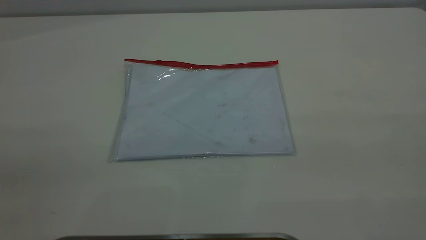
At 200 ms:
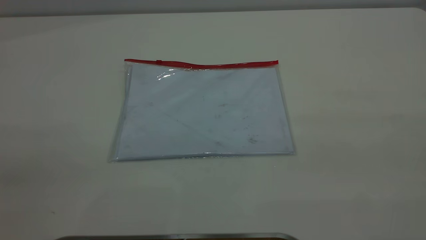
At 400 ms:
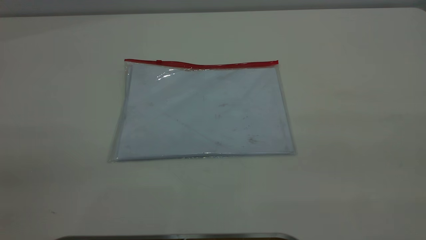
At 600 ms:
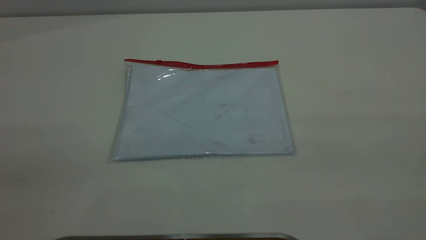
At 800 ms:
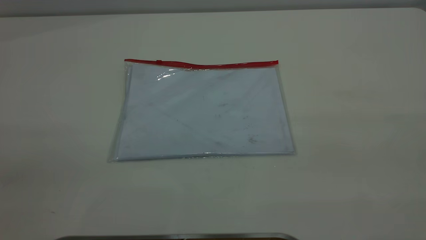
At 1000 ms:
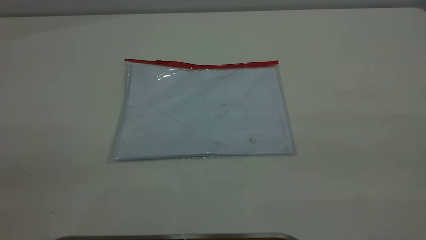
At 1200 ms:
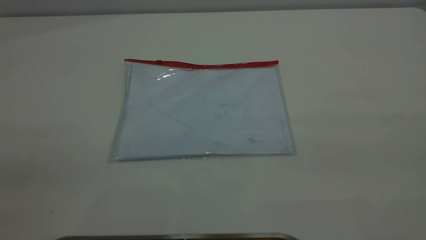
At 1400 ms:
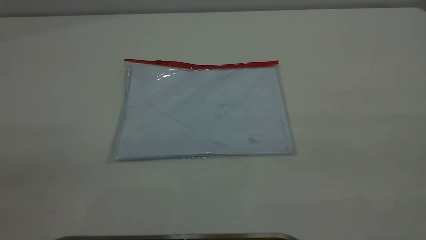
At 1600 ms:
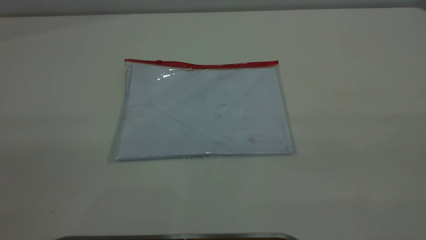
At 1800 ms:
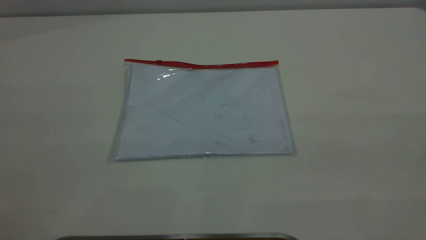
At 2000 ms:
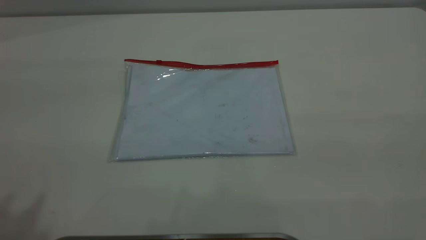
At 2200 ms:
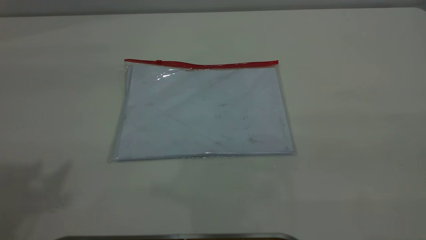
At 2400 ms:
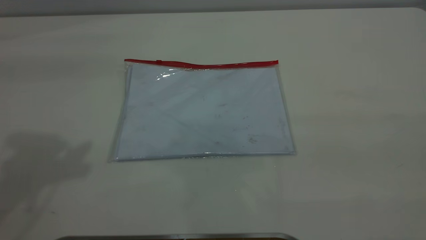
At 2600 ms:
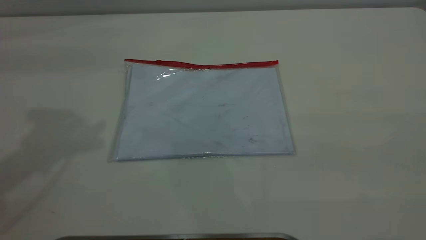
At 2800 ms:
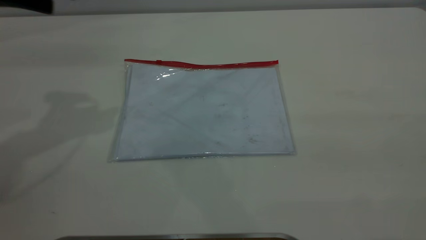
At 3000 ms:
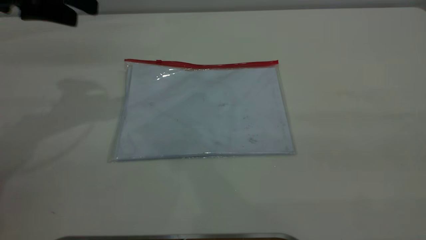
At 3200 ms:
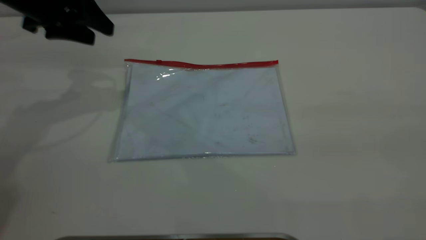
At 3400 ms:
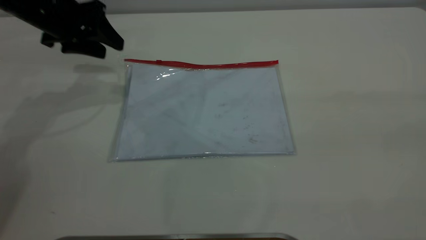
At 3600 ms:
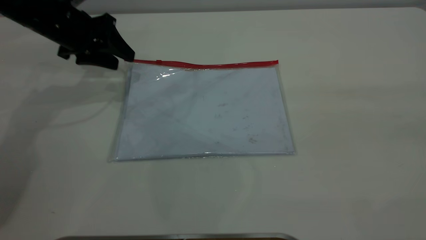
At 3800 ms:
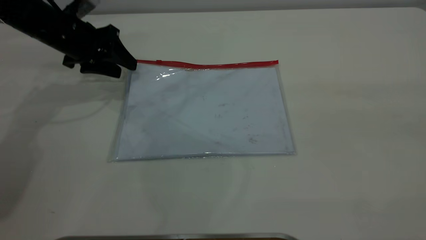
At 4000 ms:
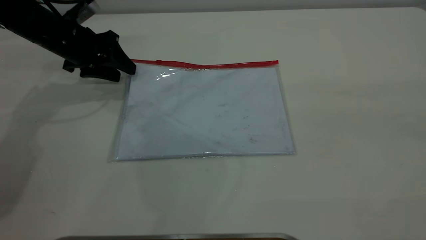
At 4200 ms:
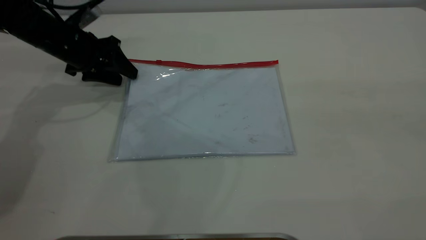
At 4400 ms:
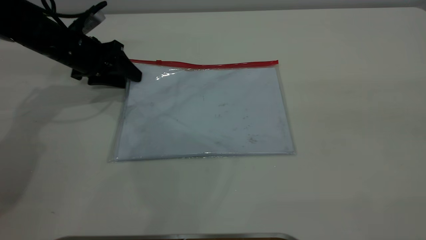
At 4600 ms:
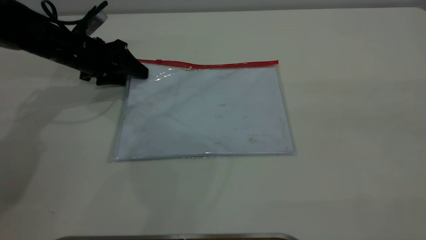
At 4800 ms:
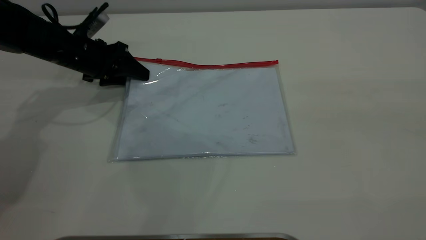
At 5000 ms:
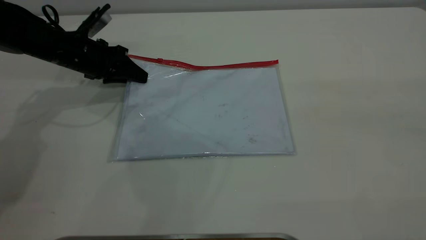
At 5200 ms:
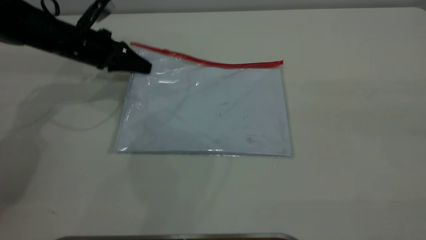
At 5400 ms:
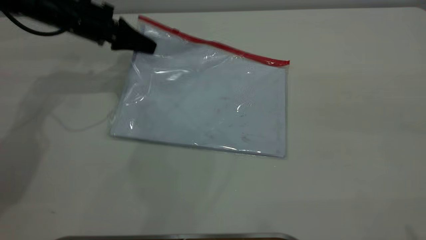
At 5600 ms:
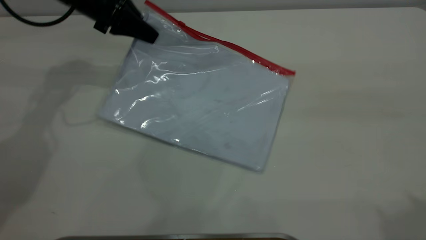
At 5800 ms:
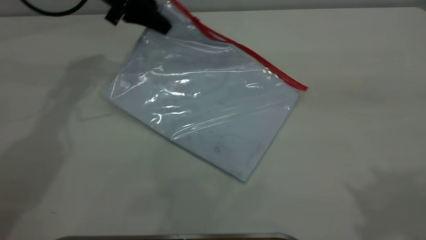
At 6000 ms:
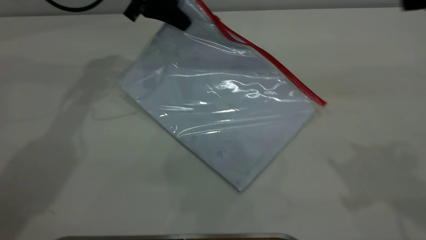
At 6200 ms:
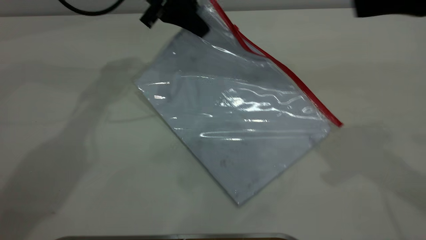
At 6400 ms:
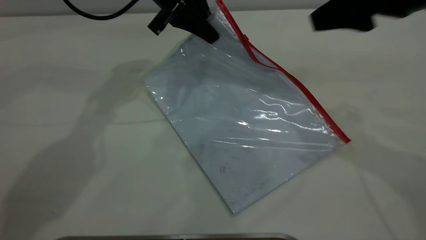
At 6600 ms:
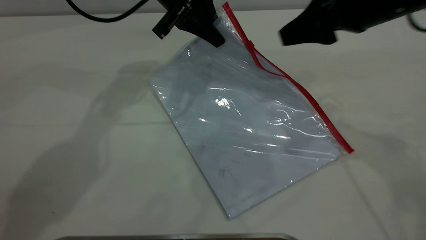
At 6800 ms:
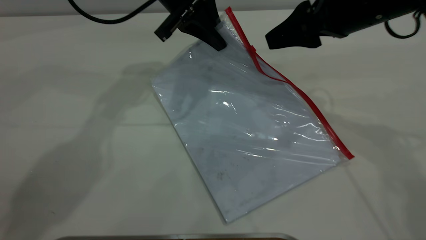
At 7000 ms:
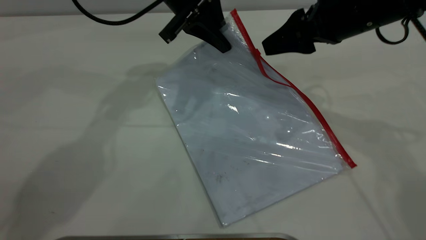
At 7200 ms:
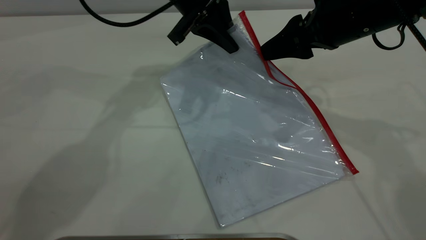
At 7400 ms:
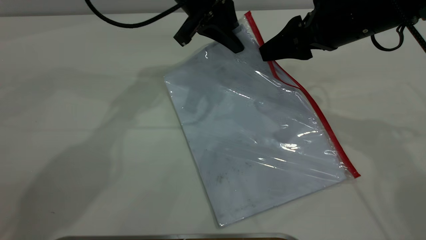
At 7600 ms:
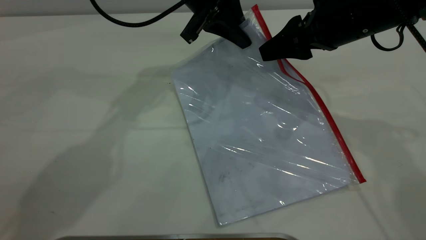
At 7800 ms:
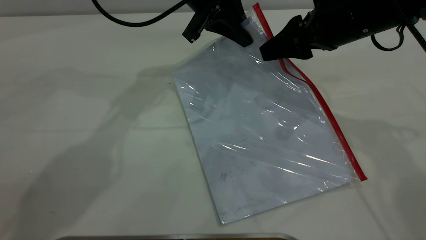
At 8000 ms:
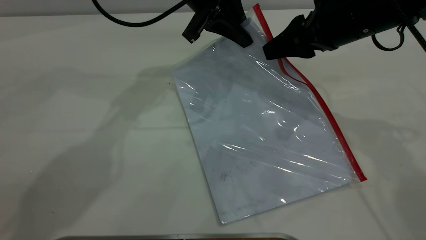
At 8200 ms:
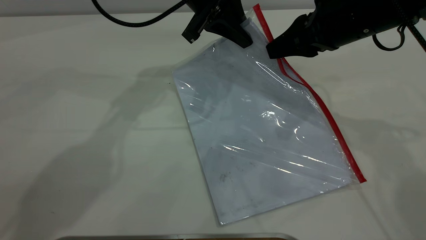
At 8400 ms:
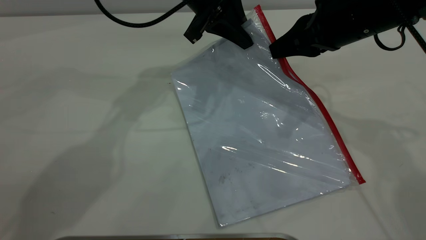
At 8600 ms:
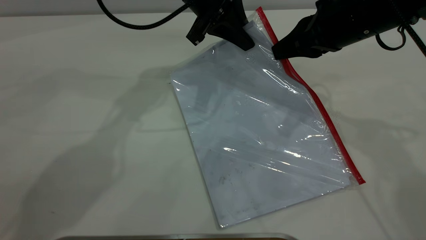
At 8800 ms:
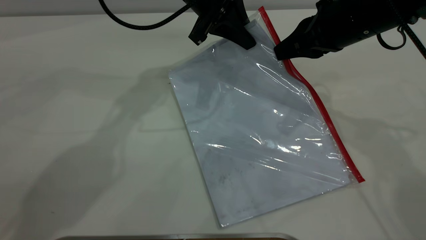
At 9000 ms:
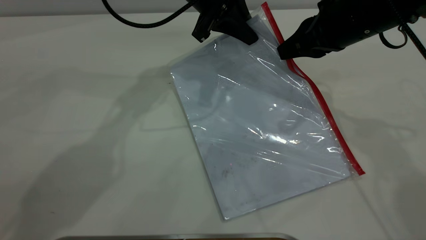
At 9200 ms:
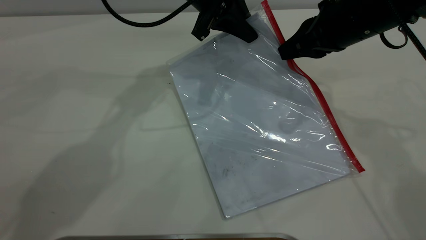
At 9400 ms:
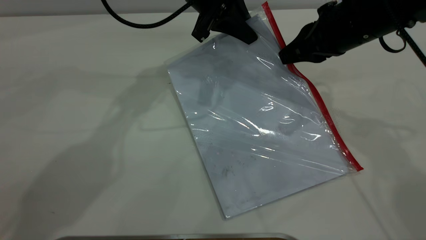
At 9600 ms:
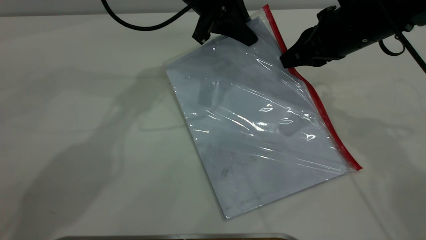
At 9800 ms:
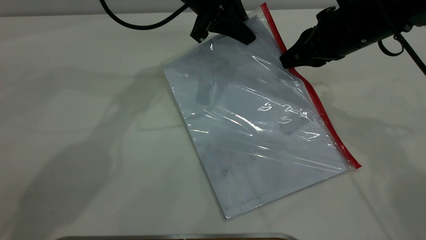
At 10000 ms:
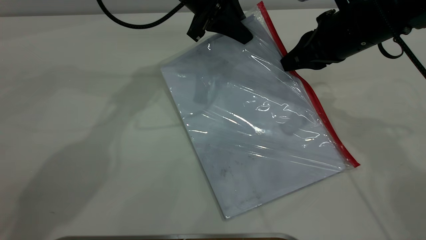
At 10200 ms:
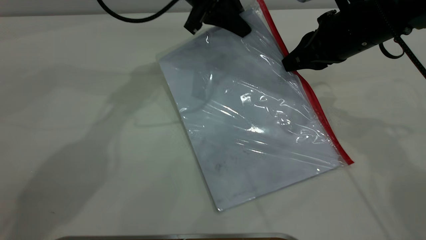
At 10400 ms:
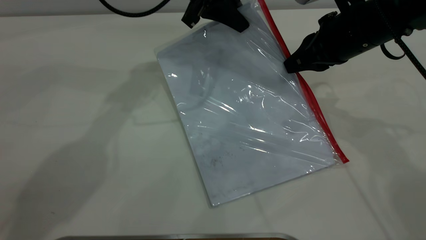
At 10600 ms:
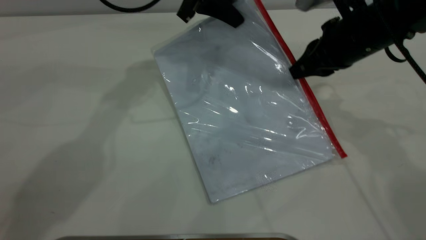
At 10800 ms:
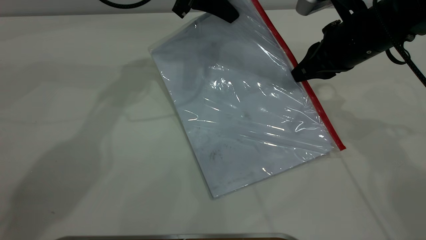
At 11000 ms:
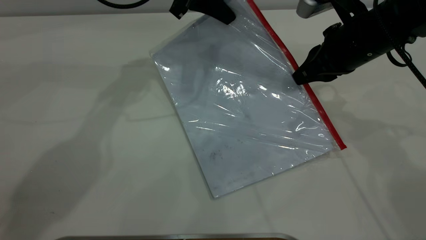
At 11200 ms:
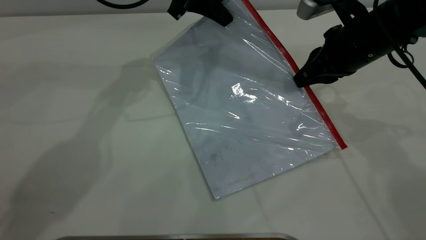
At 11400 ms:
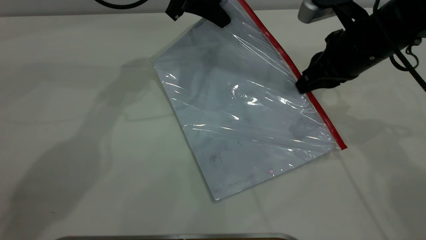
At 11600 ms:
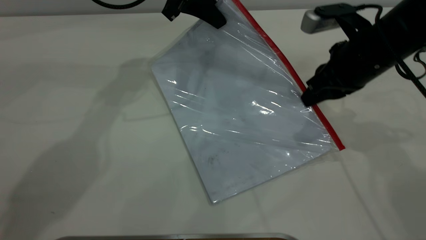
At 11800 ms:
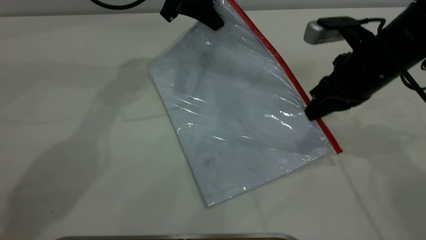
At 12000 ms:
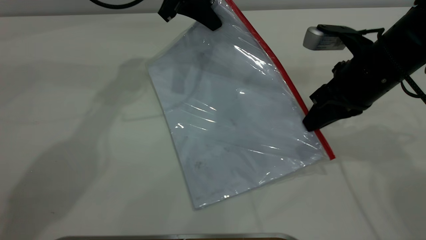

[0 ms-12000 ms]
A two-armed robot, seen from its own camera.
Step, 0 ms to 5200 ms: Pick up the transparent plastic bag with the left gripper.
1600 ms to 3000 ms: The left gripper travels forward and downward by roughly 40 cm.
3000 ms to 4400 ms: The left gripper is displaced downward and forward by approximately 20 cm.
4400 ms to 6000 ms: The left gripper is displaced to the right and upward by approximately 15 cm, and closes; the right gripper goes approximately 20 cm forward and downward.
6000 ms to 7600 ms: The right gripper travels downward, forward and to the left by some 20 cm. The left gripper heads to the right, covering approximately 10 cm.
7600 ms to 9000 ms: The right gripper closes up.
9000 ms to 10400 ms: The grippers move only a little.
10400 ms to 12000 ms: The right gripper changes place by approximately 5 cm.

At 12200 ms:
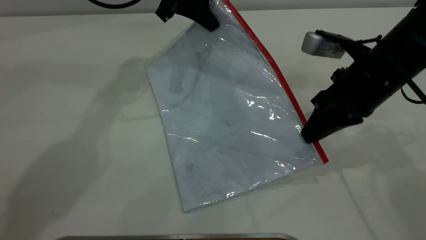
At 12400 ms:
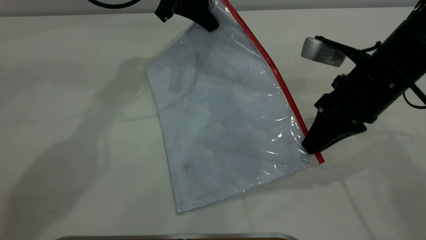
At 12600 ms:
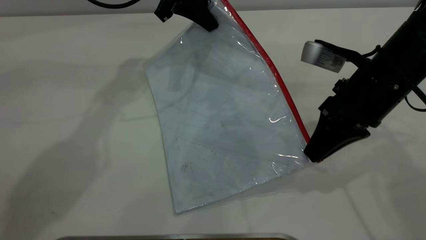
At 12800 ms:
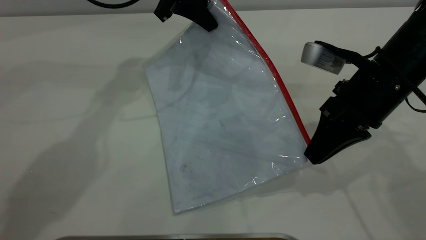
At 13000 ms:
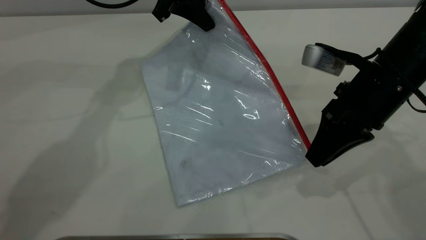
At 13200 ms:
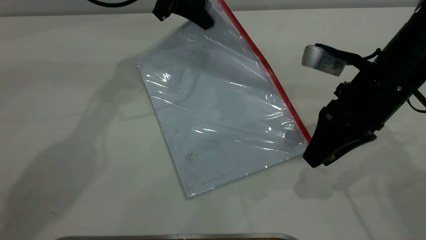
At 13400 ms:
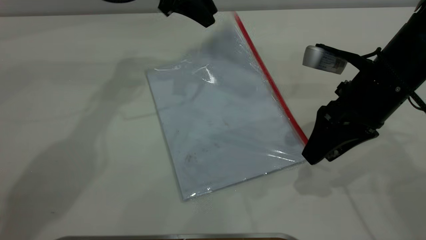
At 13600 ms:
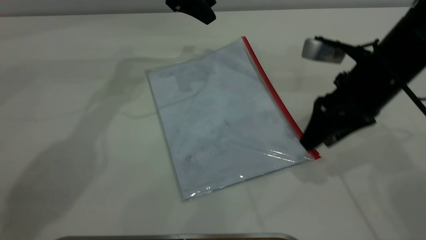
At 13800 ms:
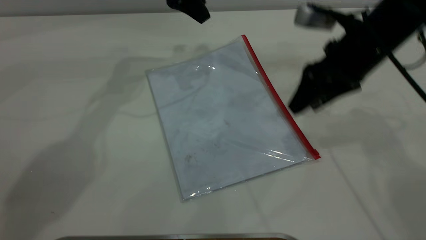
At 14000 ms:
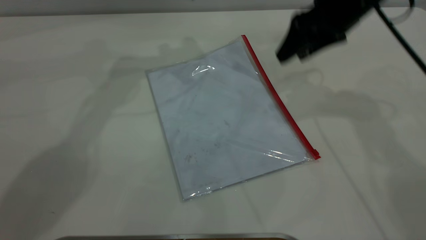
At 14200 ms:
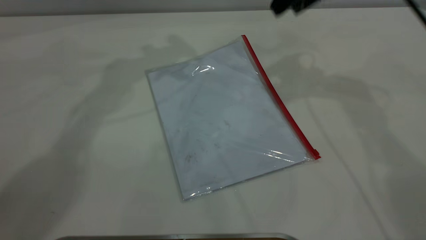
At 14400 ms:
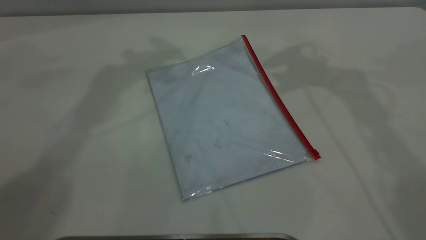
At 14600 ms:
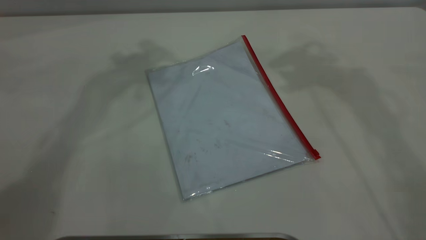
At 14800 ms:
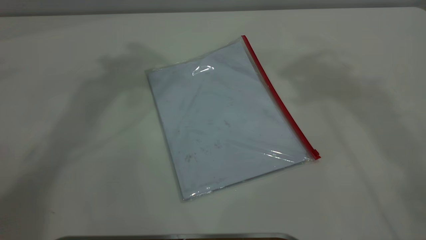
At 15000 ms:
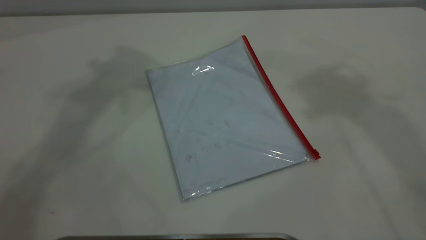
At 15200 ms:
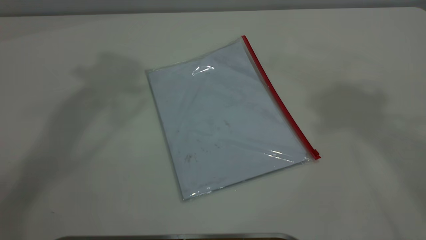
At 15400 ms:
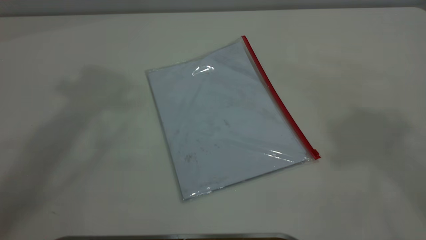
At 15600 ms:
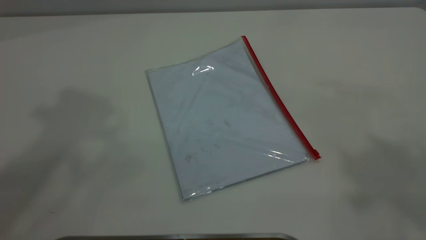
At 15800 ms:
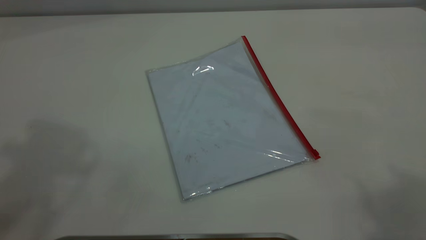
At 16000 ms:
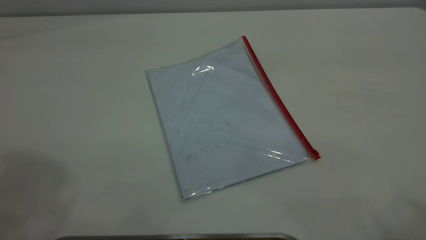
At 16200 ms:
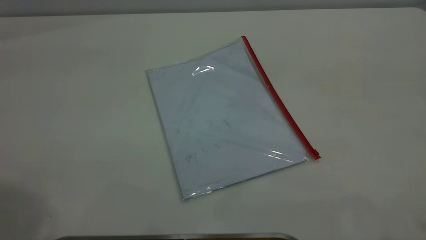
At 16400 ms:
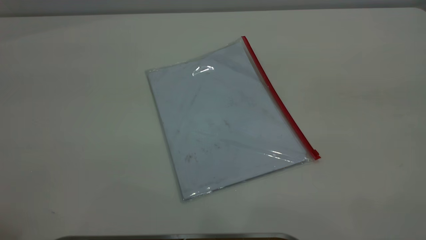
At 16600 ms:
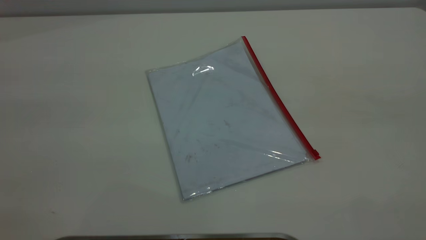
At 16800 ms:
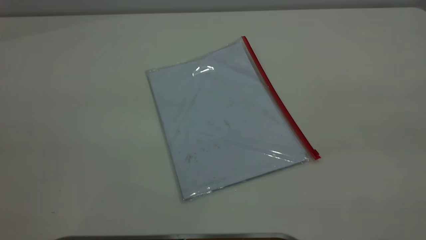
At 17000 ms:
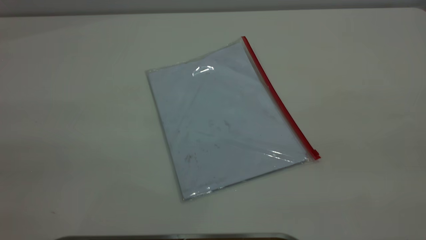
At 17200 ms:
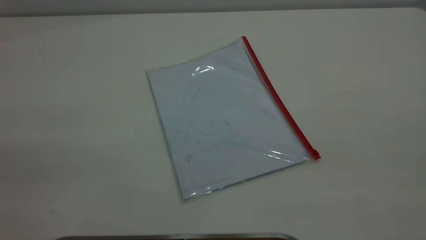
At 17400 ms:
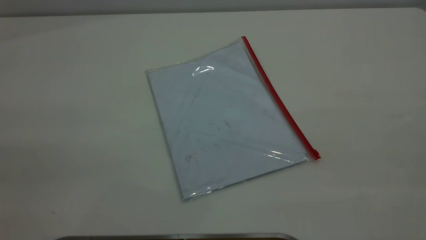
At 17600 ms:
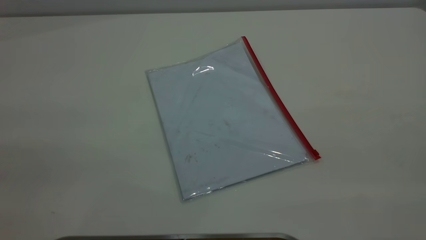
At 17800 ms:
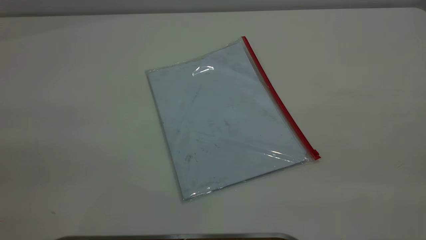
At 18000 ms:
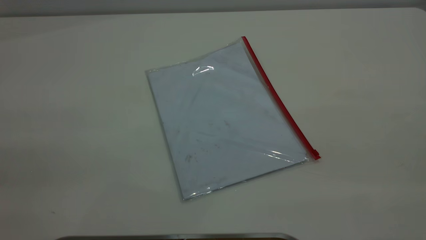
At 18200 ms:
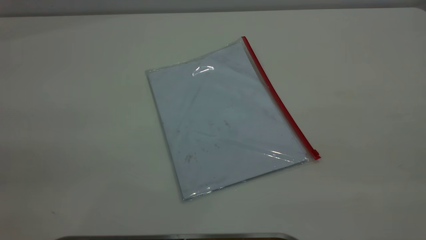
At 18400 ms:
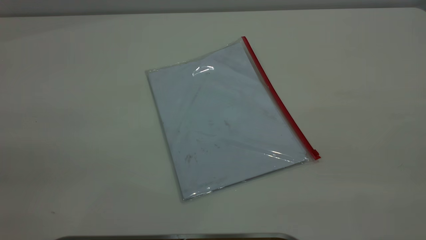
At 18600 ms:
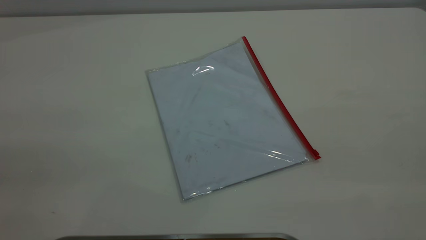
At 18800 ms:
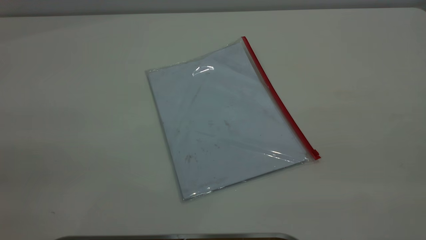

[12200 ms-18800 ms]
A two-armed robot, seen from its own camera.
Step, 13200 ms to 13800 ms: Place the transparent plastic bag.
12200 ms to 13800 ms: The right gripper moves forward, some 5 cm, and opens its fingers, while the left gripper opens its fingers.
13800 ms to 15400 ms: The right gripper goes about 40 cm upward, while the left gripper is displaced upward and backward by some 40 cm.
17200 ms to 18800 ms: Both grippers stay put.
